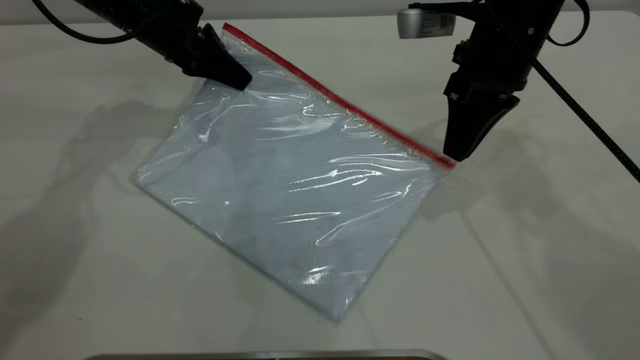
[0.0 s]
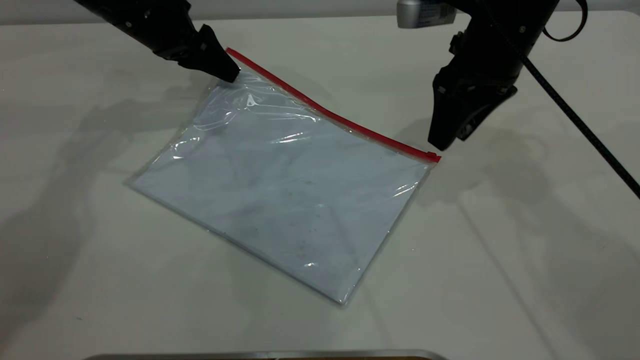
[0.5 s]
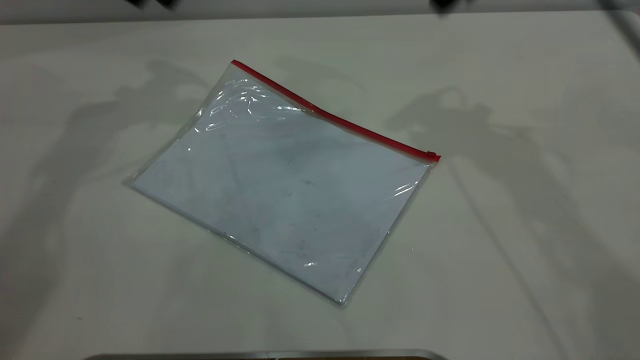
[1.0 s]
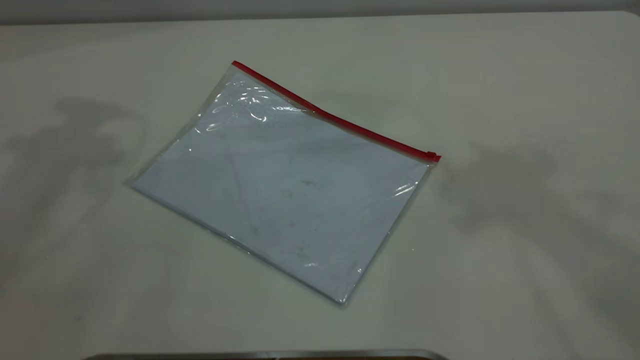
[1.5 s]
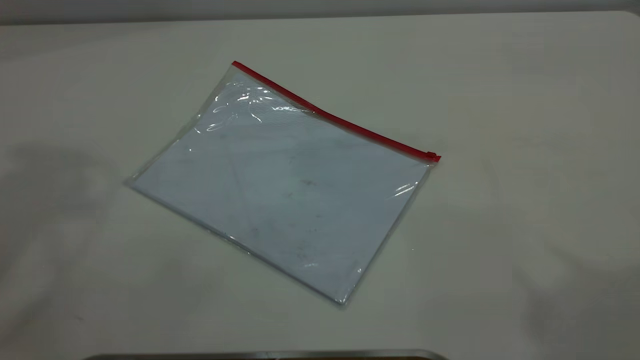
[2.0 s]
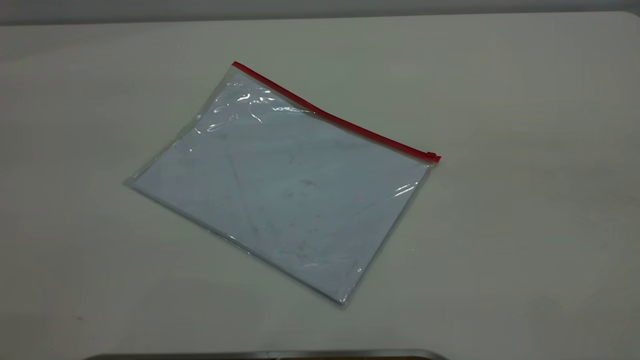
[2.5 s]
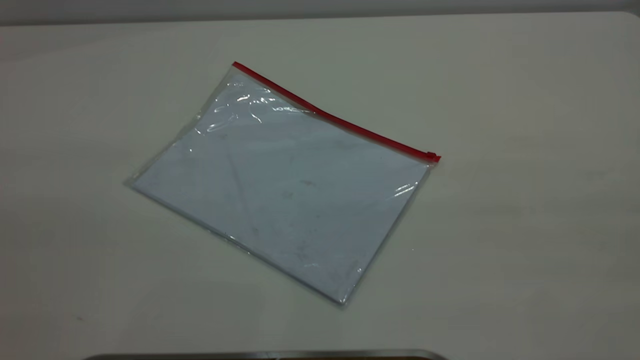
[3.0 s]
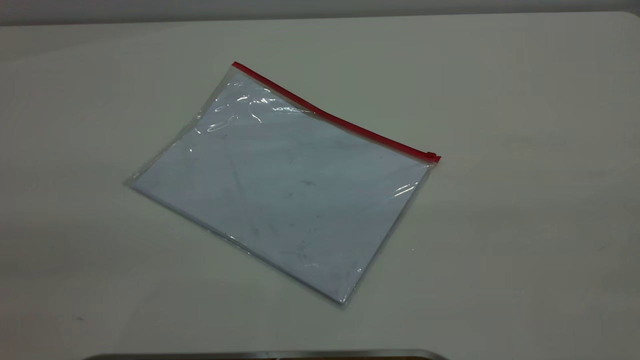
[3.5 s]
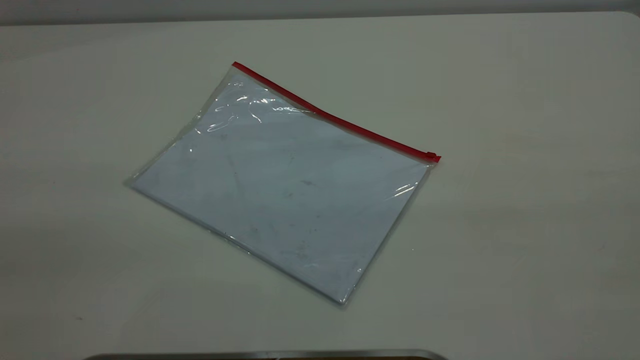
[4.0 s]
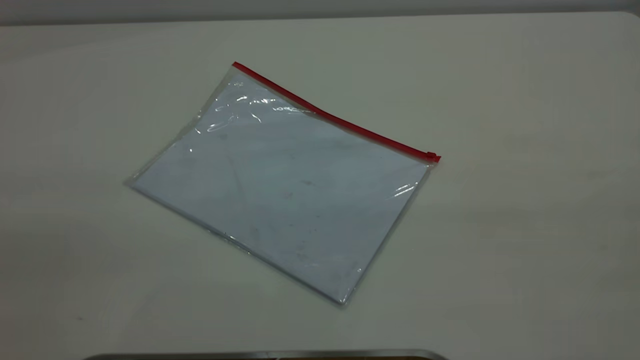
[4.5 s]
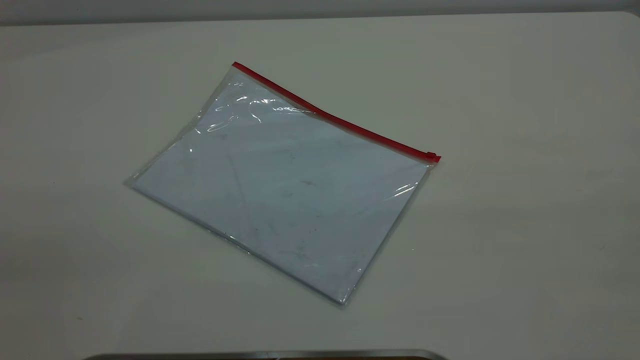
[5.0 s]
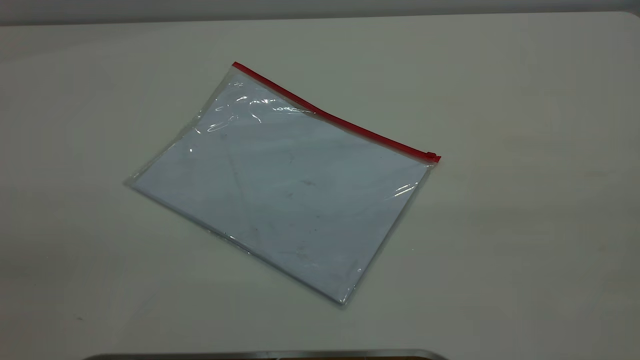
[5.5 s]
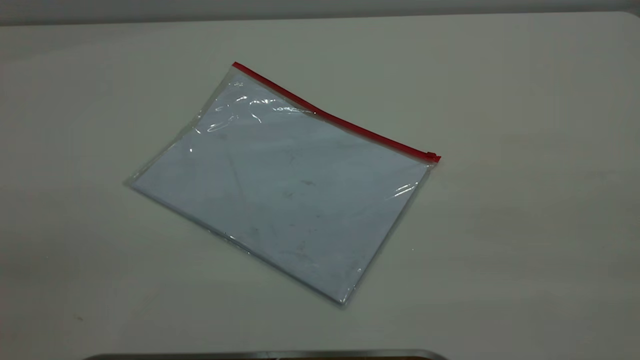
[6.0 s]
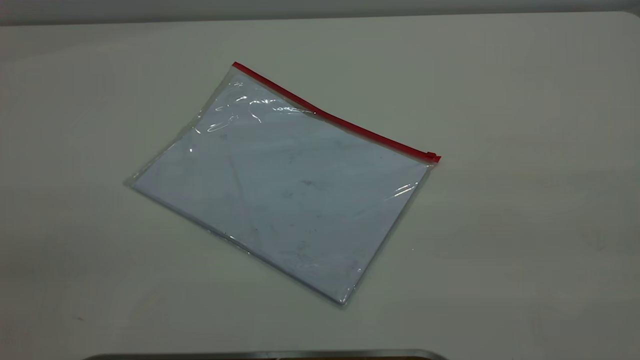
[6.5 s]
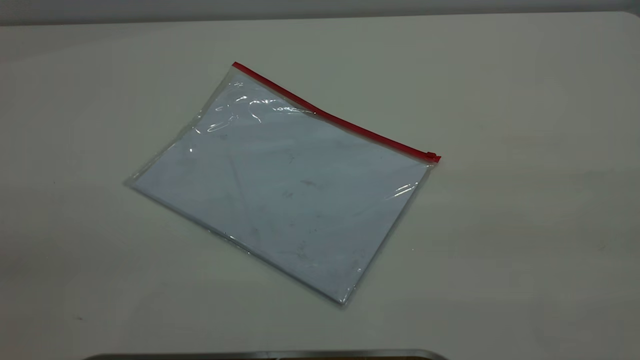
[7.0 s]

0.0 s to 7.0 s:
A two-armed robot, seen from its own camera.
0.0 to 2.0 s: Both grippers travel together upward and backward, approximately 50 cm. The right gripper opens up. Meanwhile the left gripper opens its fingers.
